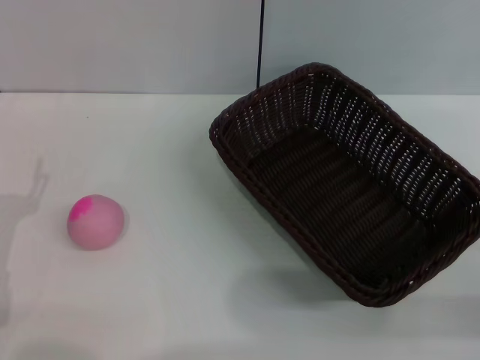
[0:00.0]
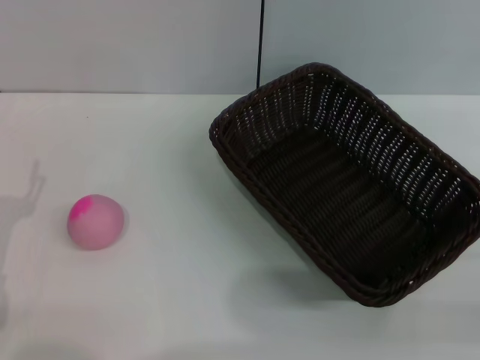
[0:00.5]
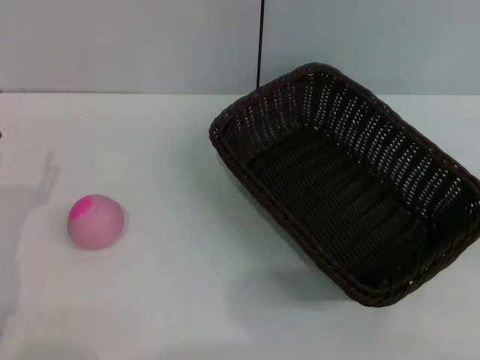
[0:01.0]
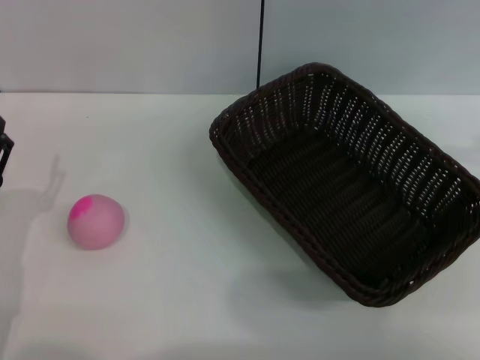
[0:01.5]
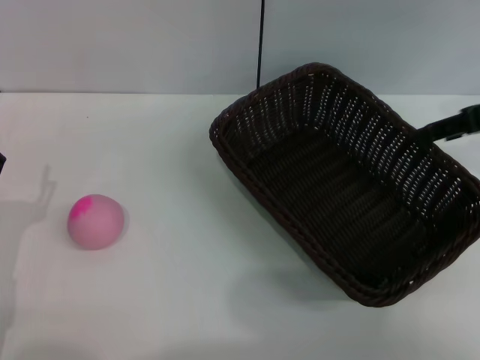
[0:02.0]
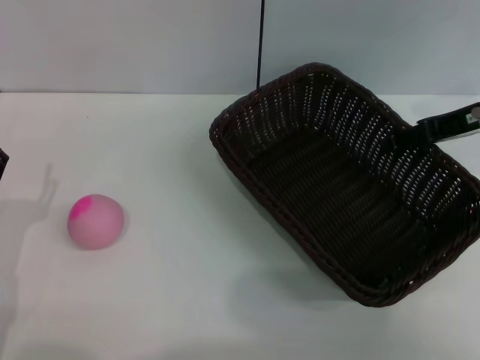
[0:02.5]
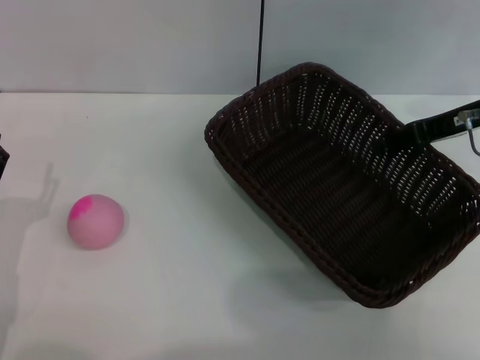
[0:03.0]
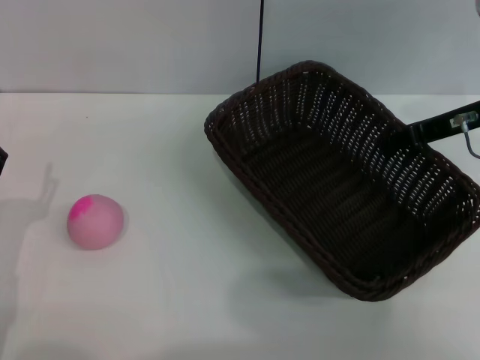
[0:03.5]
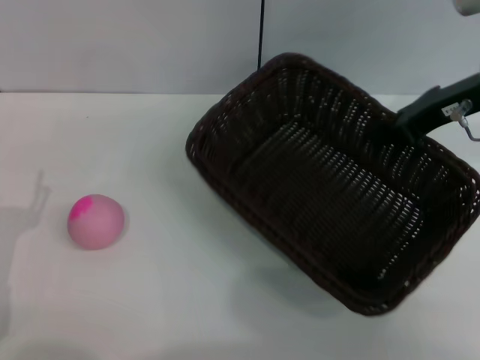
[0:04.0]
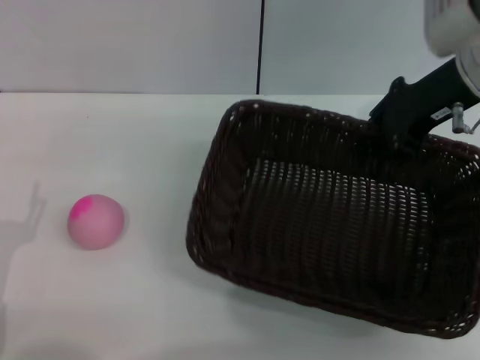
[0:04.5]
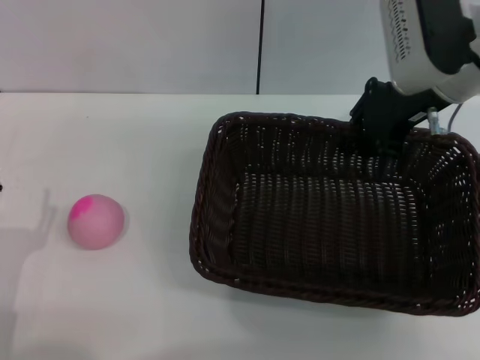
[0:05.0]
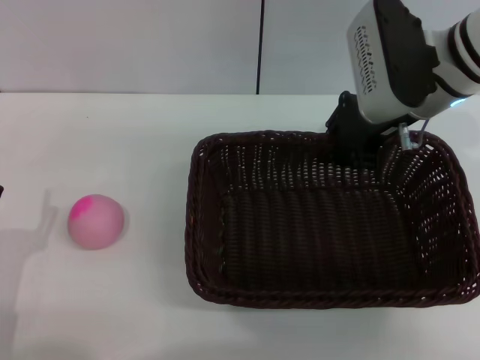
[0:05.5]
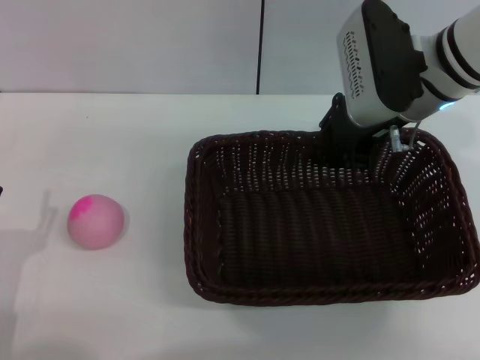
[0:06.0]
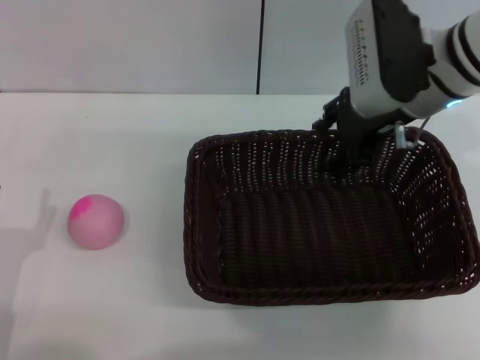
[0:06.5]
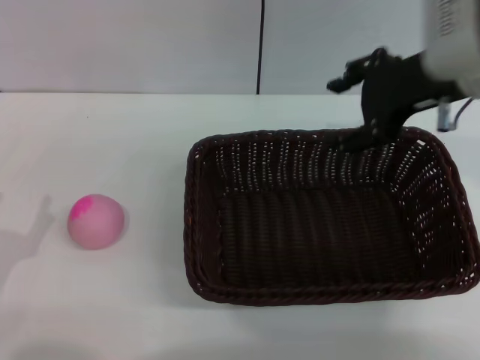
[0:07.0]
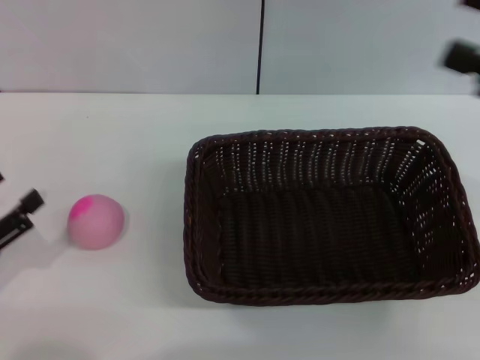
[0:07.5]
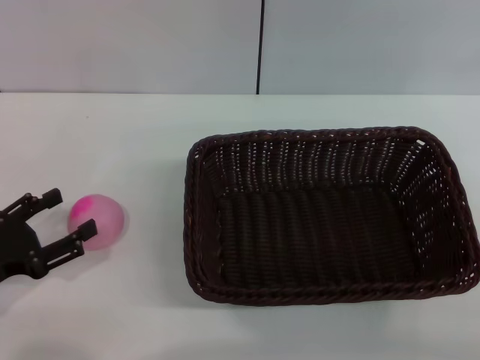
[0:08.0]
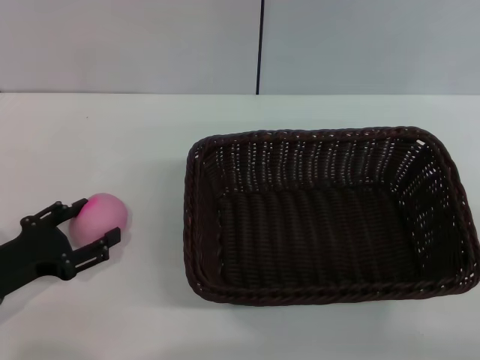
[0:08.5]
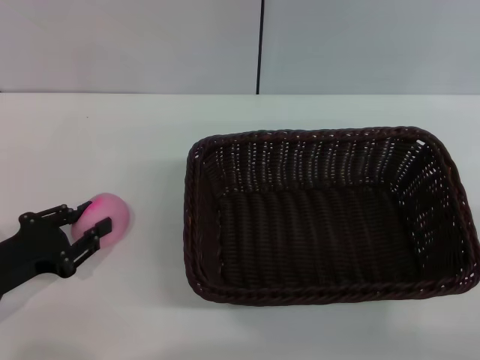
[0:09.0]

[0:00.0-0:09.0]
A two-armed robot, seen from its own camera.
Step, 0:00.0 to 0:03.5: Pick up the dark basket with the right gripper.
Step, 0:04.5 to 0:06.5: Place the dark basket in the center of view with the right gripper.
0:00.0 to 0:02.0: The right gripper is displaced forward and upward by some 20 cm.
0:02.0 to 0:04.5: The right gripper heads to the left, covering about 10 cm, and closes its fingers.
0:04.5 to 0:07.0: The right gripper changes place by roughly 5 cm, and opens.
0:07.0 to 0:09.0: The right gripper goes roughly 30 cm to the right, backward and downward; the left gripper is displaced forward by approximately 5 cm.

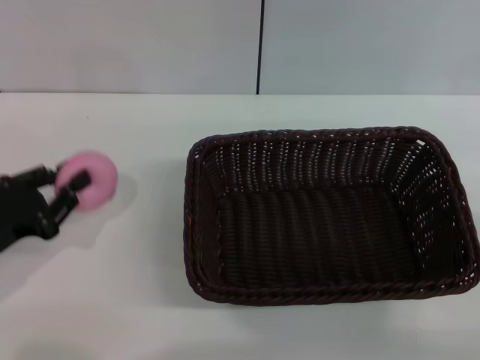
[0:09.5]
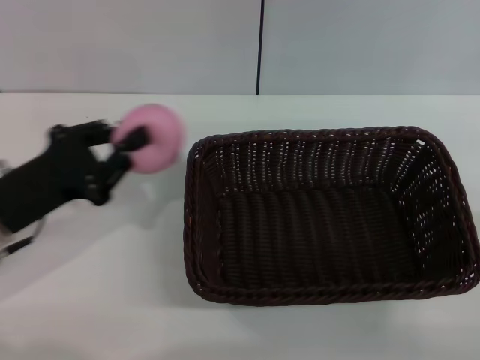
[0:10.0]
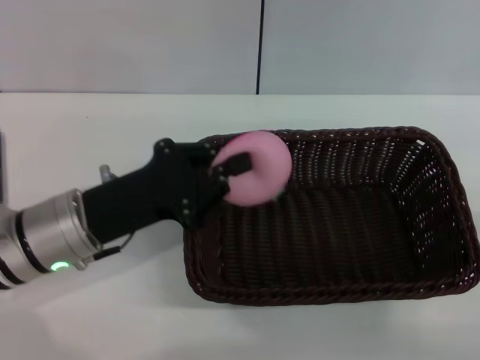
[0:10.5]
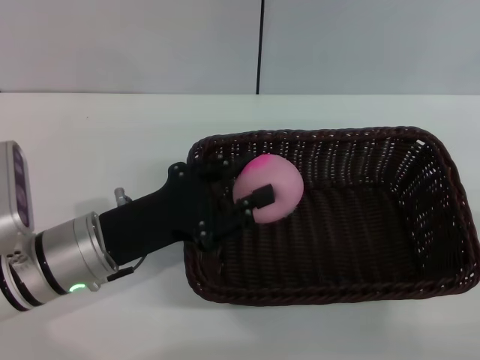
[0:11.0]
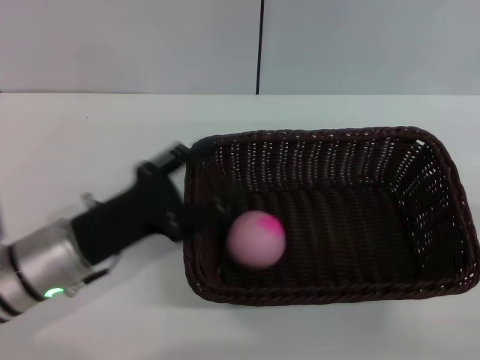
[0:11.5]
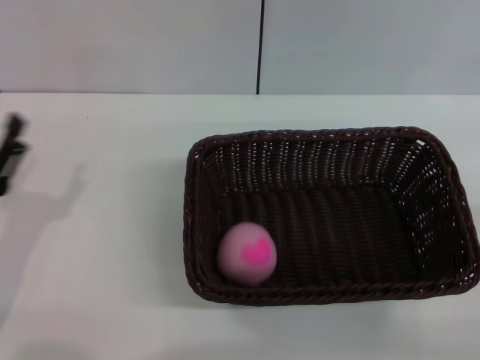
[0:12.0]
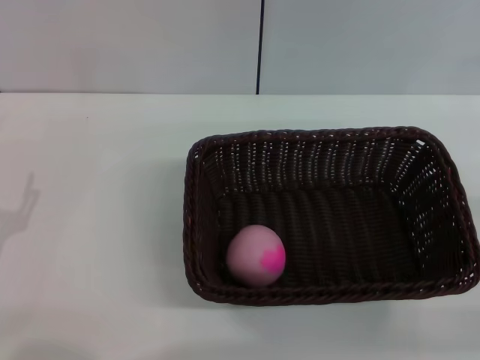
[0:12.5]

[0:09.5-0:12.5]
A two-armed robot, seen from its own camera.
Step, 0:10.0 to 0:11.0: Place the peach into the basket with the left gripper.
0:09.5 to 0:11.0: The left gripper moves to the right, some 15 cm.
0:11.0 to 0:12.5: The left gripper heads to the left and backward, covering approximately 15 cm, and opens its fingers.

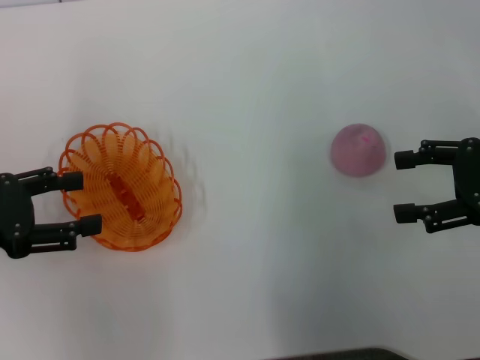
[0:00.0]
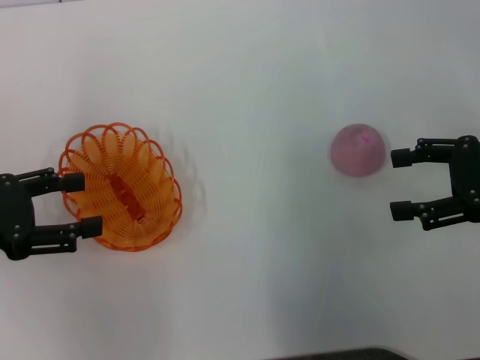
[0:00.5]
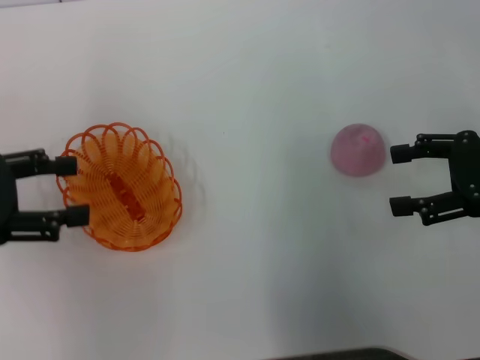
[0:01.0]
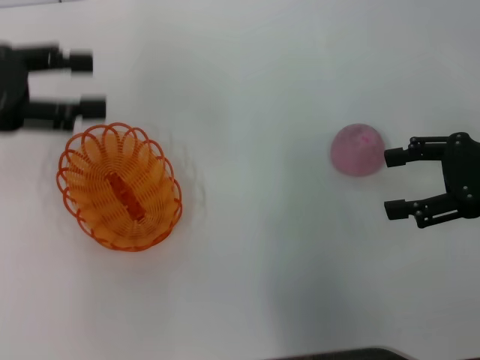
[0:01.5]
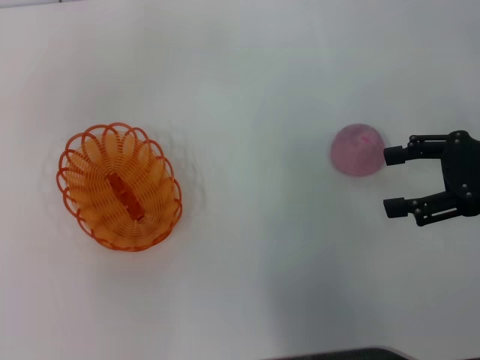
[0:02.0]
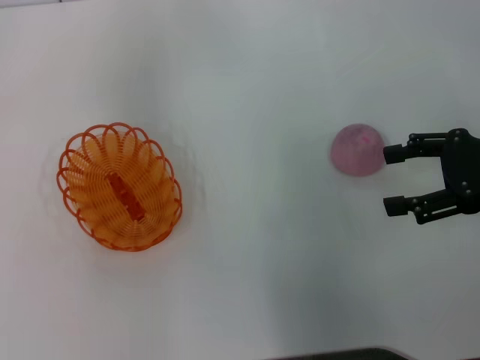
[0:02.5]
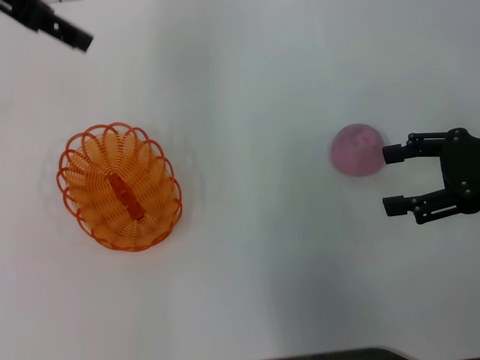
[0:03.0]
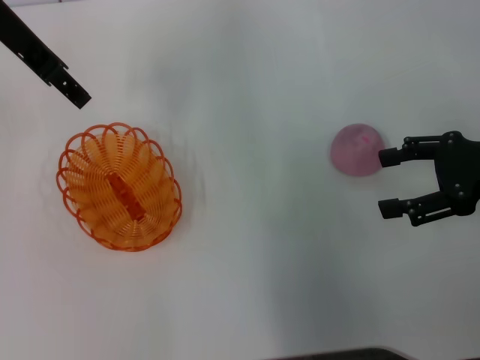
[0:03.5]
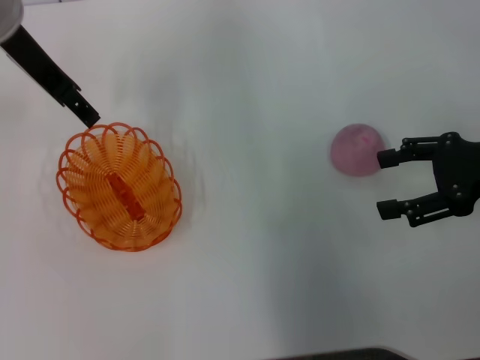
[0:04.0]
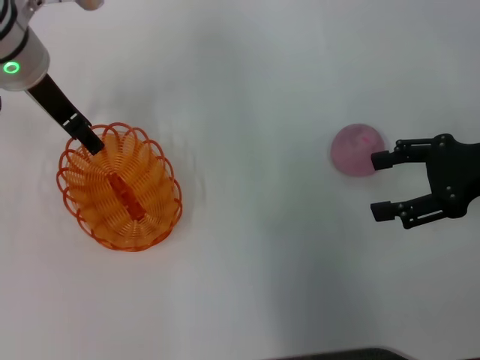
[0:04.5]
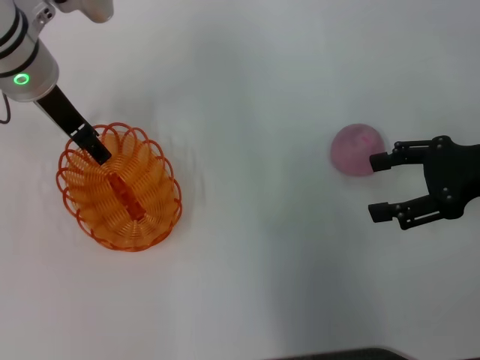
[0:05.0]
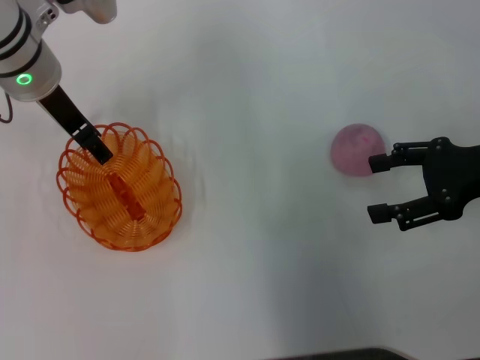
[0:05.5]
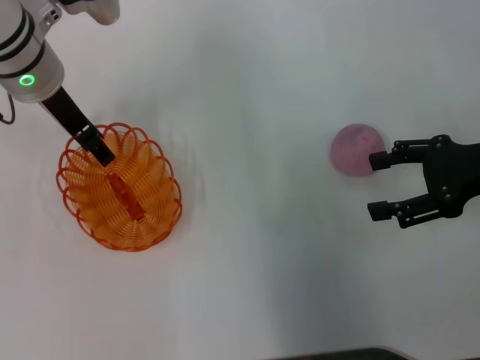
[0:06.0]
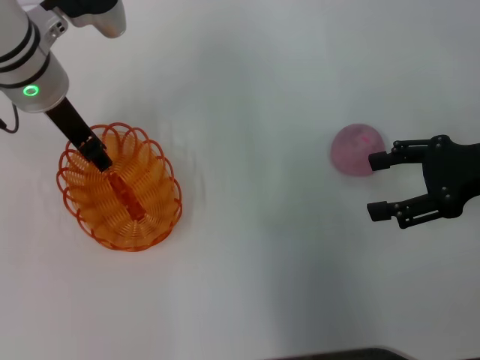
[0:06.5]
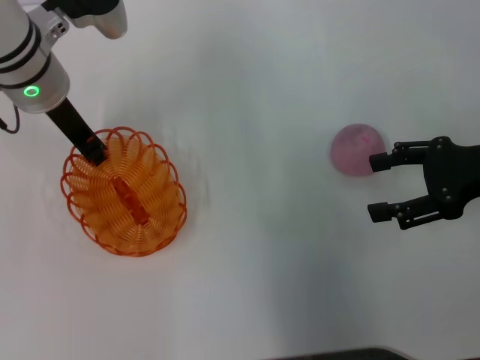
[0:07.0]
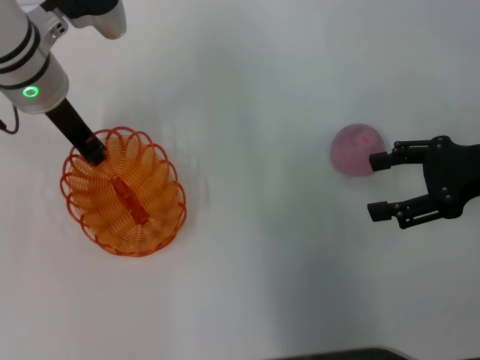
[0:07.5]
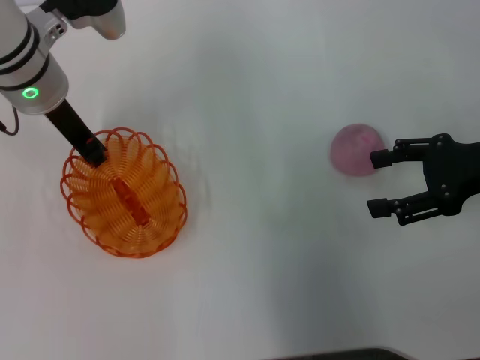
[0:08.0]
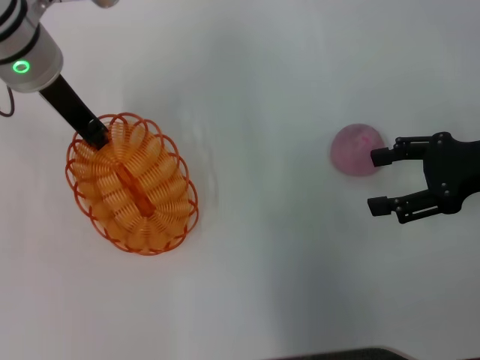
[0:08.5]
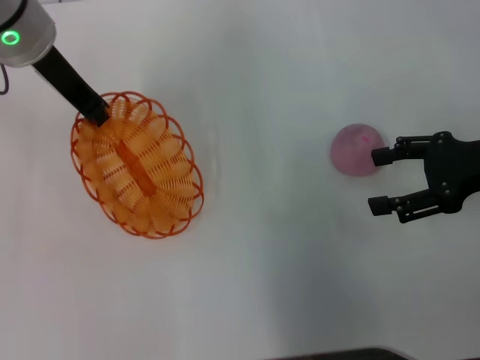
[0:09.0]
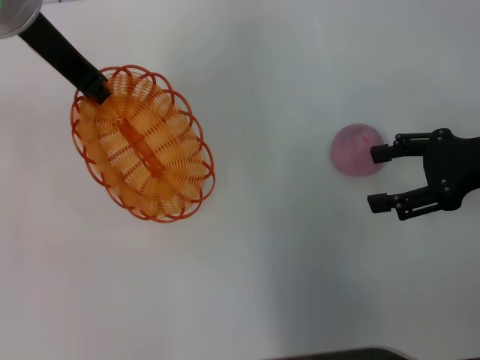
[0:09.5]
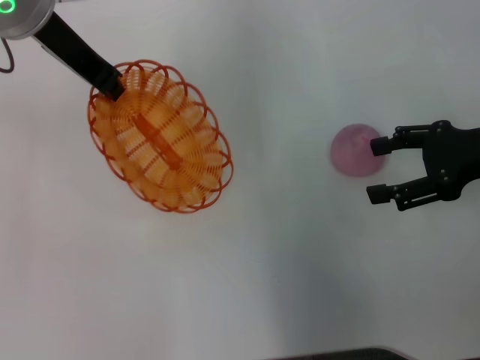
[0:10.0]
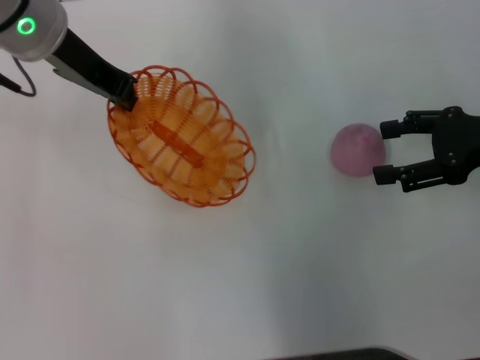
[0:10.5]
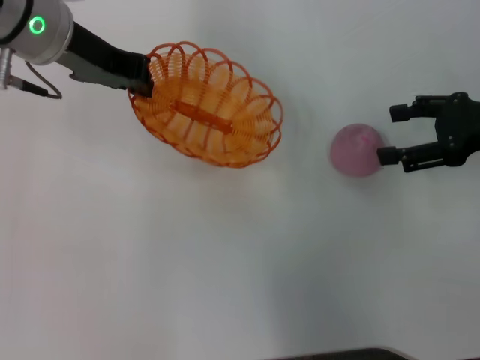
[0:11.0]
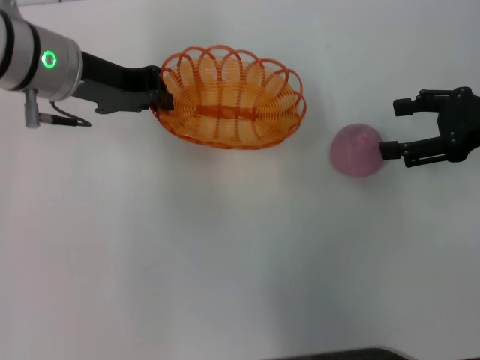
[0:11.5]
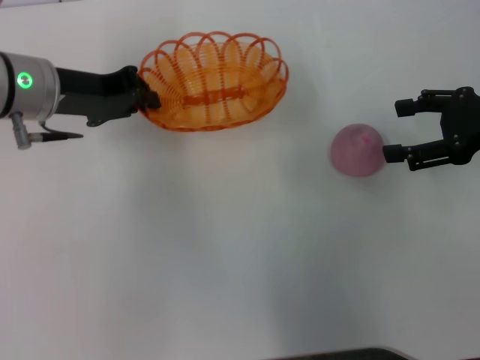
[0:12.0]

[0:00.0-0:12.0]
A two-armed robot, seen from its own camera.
Step, 0:00.0 to 0:10.0: Pick up the basket with the left gripper.
0:00.0 to 0:02.0: The left gripper travels upward and forward by about 20 cm.
0:02.0 to 0:04.0: The left gripper shifts approximately 15 cm to the right.
0:04.0 to 0:06.0: The left gripper travels downward by roughly 5 cm.
0:06.0 to 0:08.0: The left gripper closes.
0:08.0 to 0:10.0: The left gripper travels upward by some 10 cm.
0:10.0 to 0:12.0: The left gripper is displaced downward by approximately 10 cm.

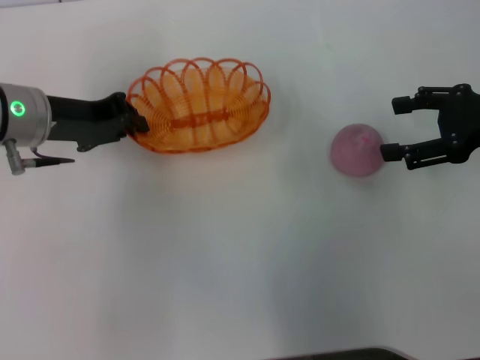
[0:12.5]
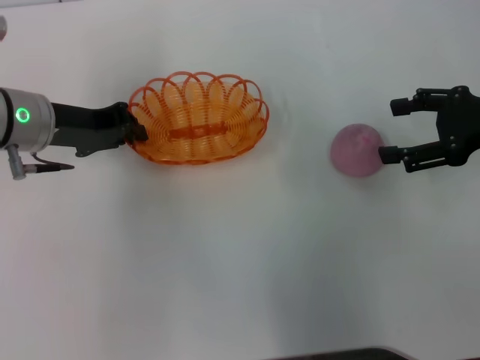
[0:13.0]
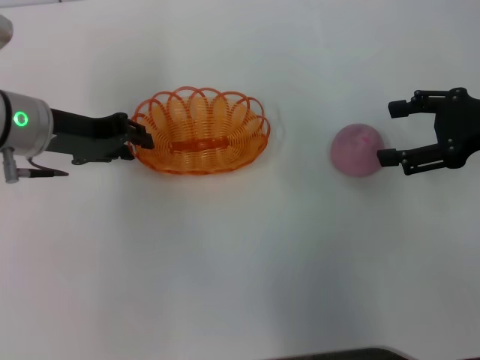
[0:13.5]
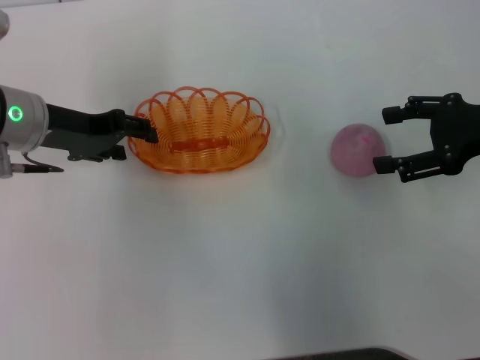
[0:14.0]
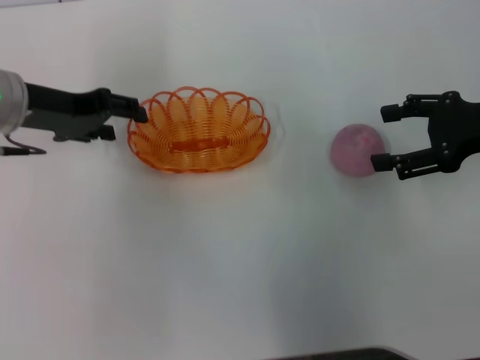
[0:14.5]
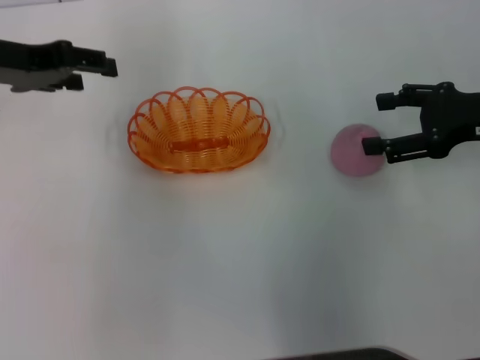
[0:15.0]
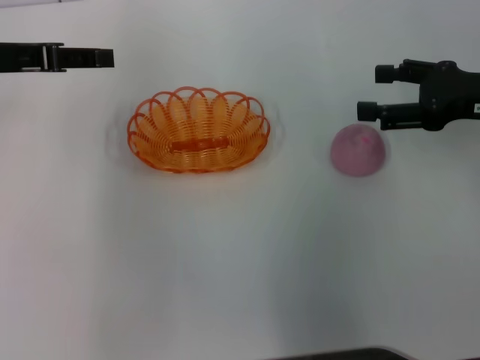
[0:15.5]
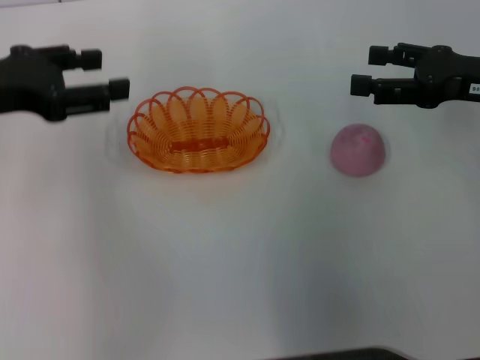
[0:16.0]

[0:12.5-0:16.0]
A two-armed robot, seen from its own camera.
Step, 0:12.5 to 0:14.5: Place the basket in the center of view with the left gripper.
0:12.5 to 0:14.5: The left gripper opens.
0:14.5 to 0:16.0: The left gripper moves some 10 cm.
